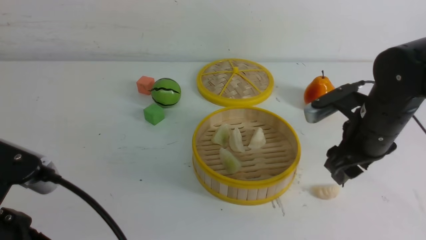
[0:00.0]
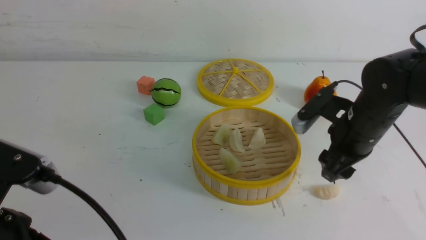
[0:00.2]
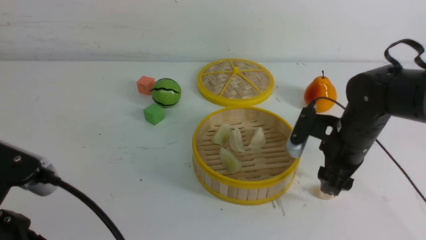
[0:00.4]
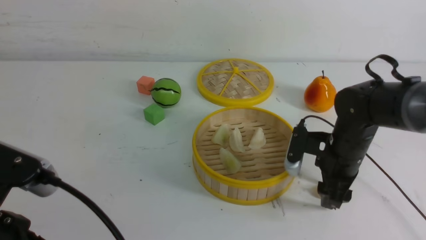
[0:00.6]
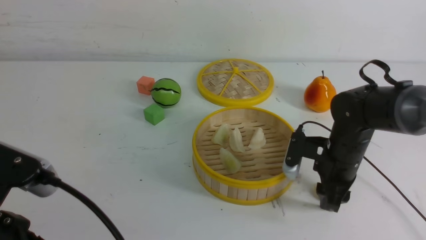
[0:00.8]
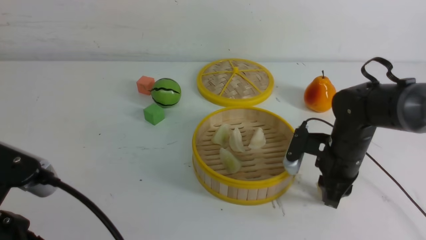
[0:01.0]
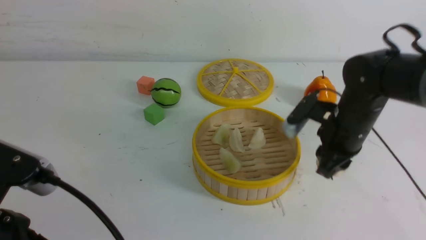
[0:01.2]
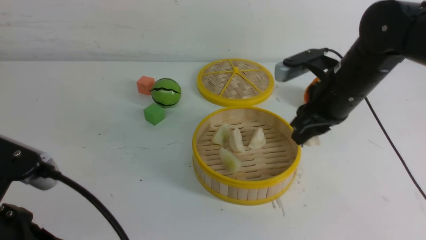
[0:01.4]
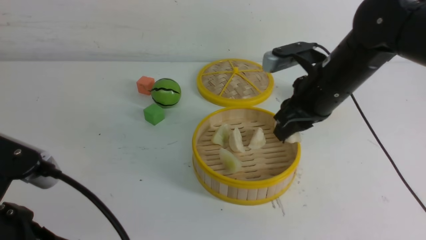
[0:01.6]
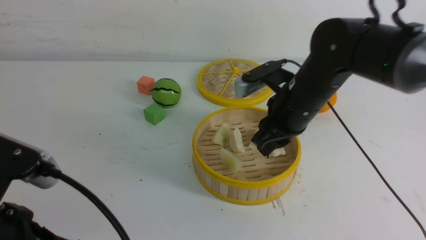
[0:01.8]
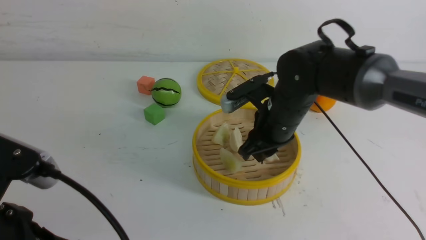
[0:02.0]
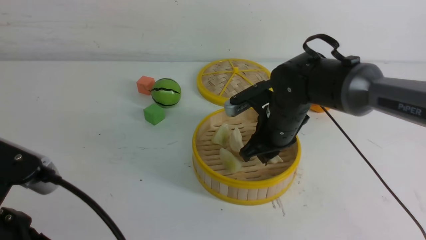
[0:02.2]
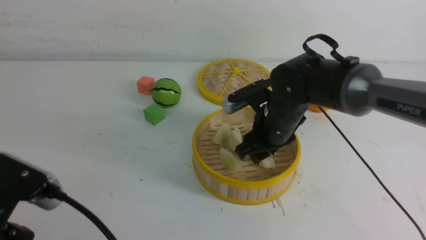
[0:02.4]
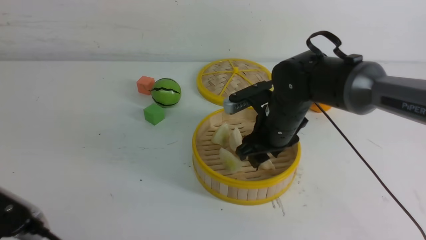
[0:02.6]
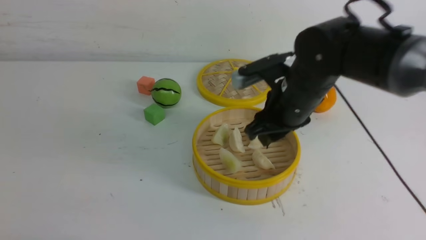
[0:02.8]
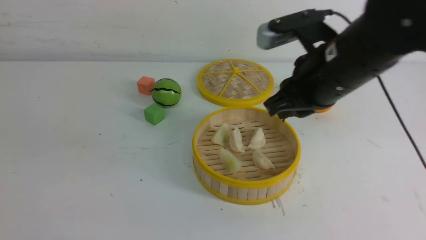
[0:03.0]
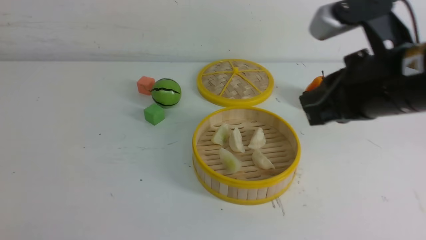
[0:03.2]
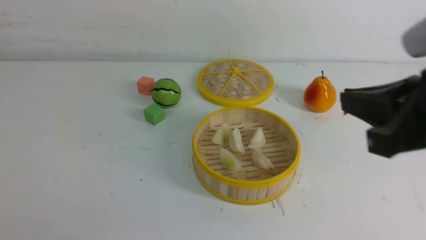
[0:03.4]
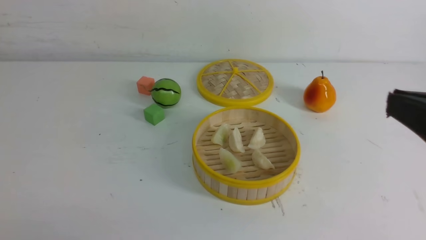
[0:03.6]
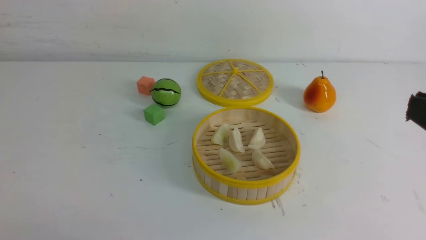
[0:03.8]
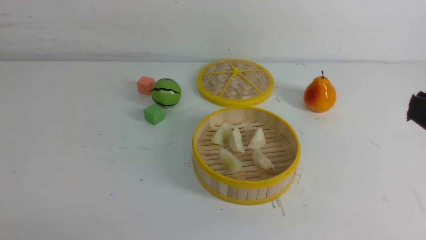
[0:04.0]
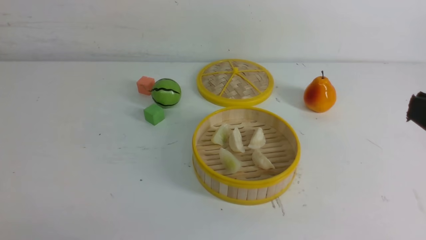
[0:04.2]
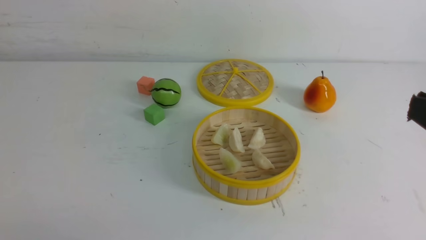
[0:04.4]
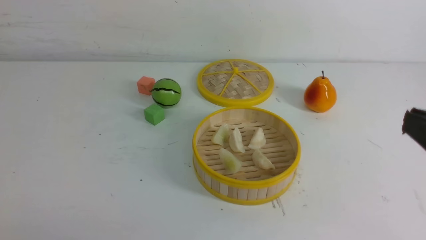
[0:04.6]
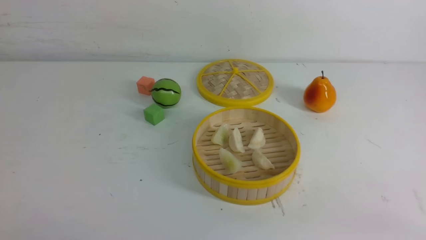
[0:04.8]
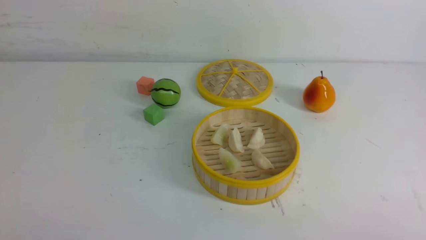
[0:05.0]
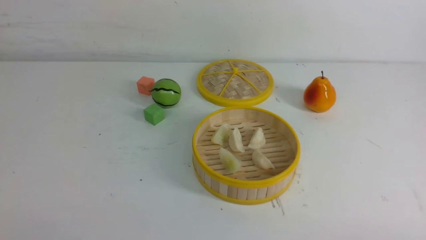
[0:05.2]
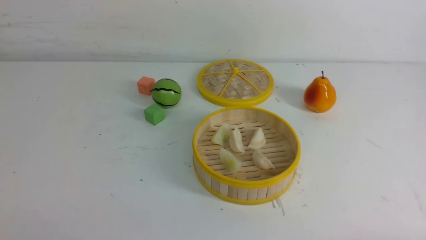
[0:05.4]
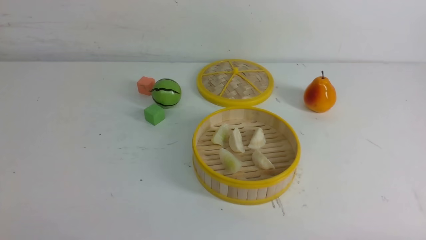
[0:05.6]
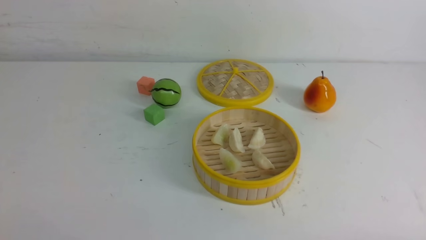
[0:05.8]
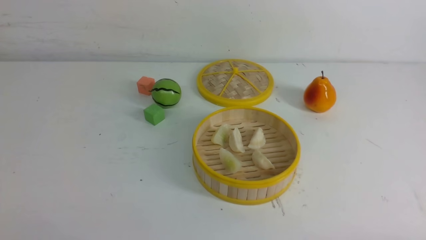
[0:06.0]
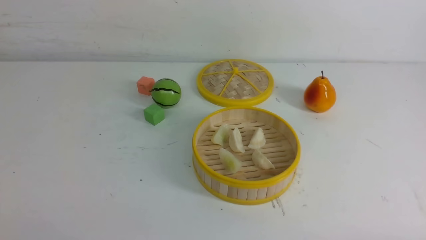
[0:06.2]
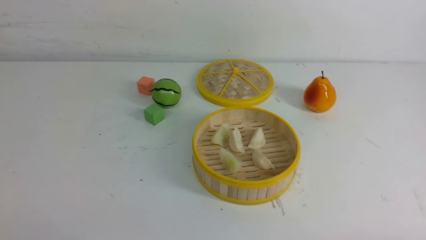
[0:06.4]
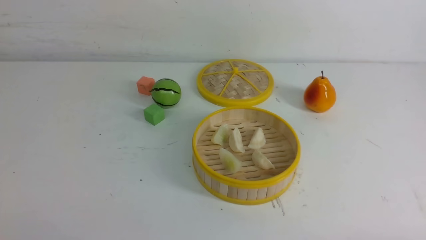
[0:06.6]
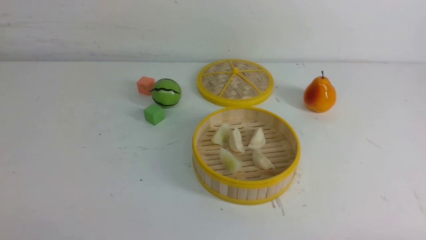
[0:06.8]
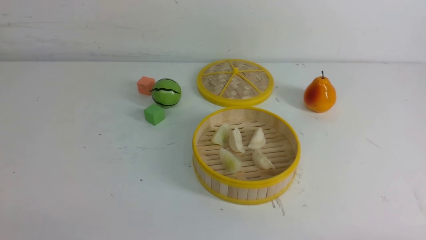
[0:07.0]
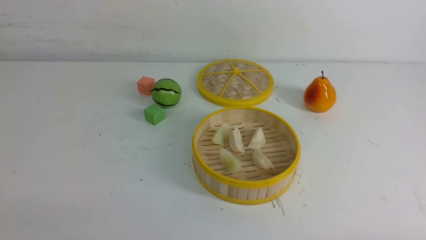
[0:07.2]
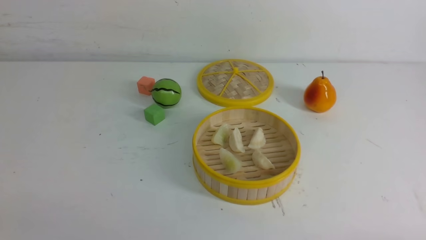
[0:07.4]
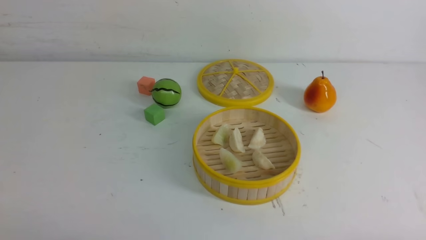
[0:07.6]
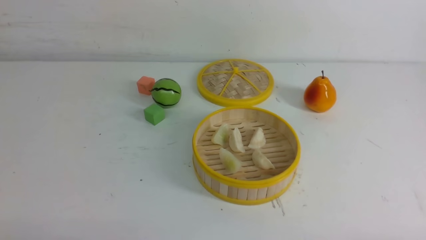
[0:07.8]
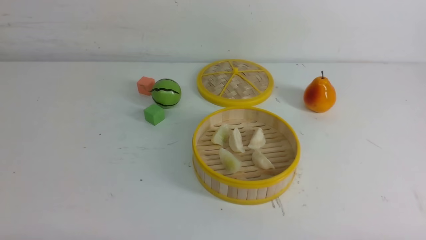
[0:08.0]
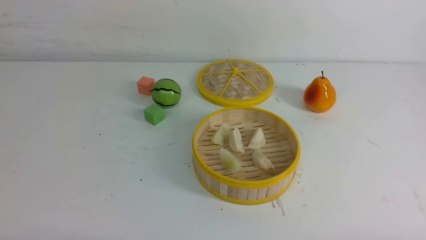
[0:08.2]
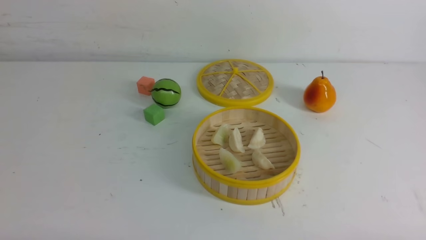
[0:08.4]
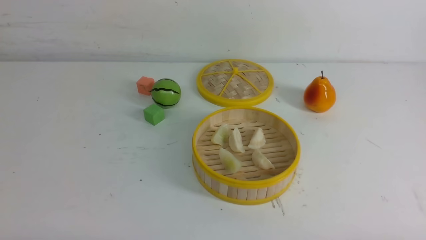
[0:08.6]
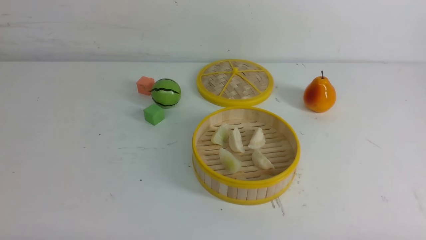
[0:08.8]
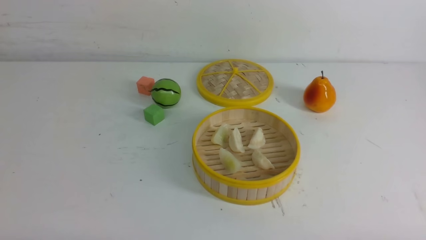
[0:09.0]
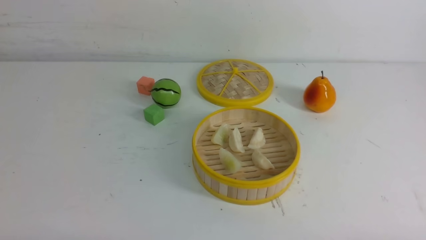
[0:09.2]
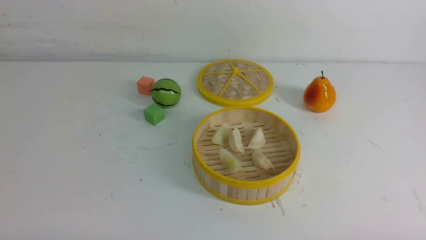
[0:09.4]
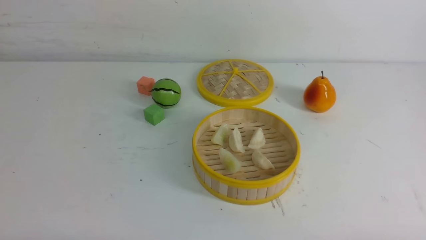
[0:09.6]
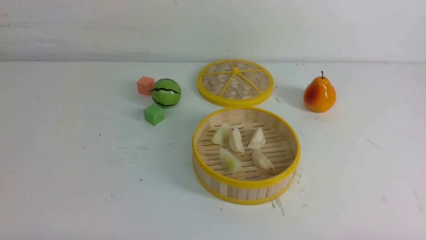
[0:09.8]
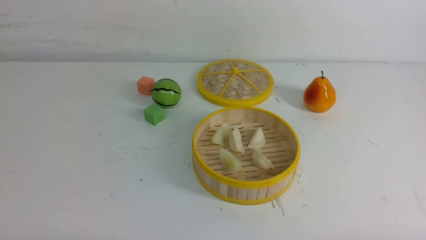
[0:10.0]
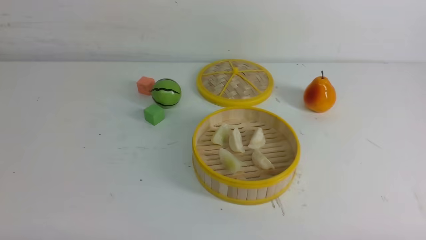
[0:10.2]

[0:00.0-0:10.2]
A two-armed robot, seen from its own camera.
Task of the whole recording: put the dumplings into the steamer on the white table.
Step, 0:00.0 to 0:01.0: use the right arm to grab a dumpling.
Step, 0:01.2 to 0:02.6: use the right arm to put the dumpling into the steamer.
0:00.0 to 0:01.4: The right gripper travels downward and back again, approximately 10 cm each way, and closes its fingers.
0:01.4 to 0:03.0: The right gripper is displaced backward and upward by some 10 cm, while the left gripper travels backward and to the left by about 10 cm.
0:03.0 to 0:04.4: The right gripper is displaced backward and to the right by some 20 cm.
0:08.8 to 0:10.2: Both grippers stay put.
